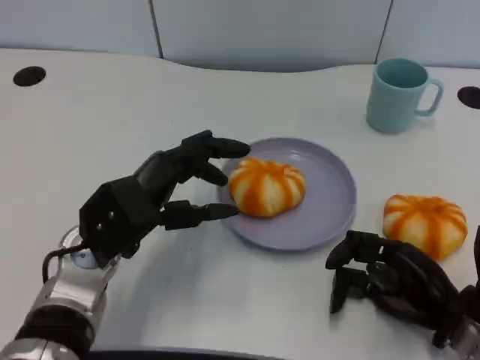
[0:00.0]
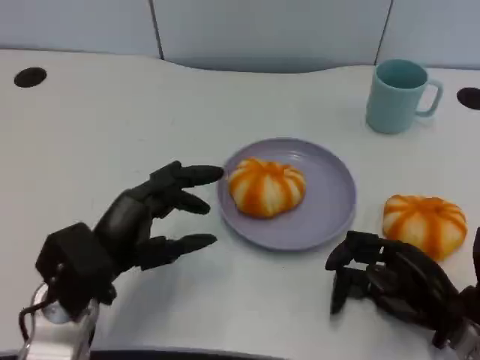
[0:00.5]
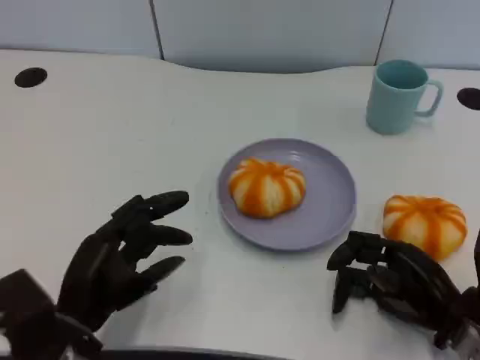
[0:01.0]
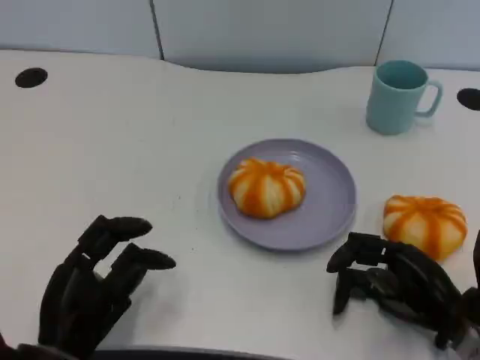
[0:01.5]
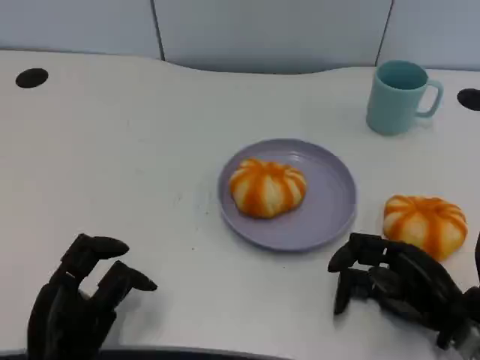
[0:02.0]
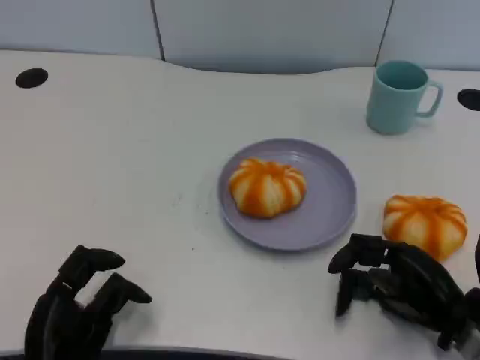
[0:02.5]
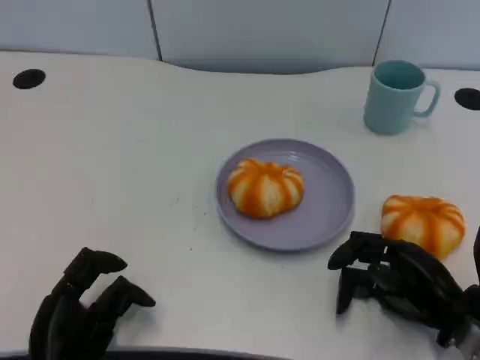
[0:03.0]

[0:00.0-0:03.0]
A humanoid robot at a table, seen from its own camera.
Task of the whole recording: Grasp the bread from the table and place it into the plate.
0.0 to 1.5 s: The left hand heads backward, downward and to the left, covering about 15 cm.
1.5 to 3.0 s: The hands move only a little.

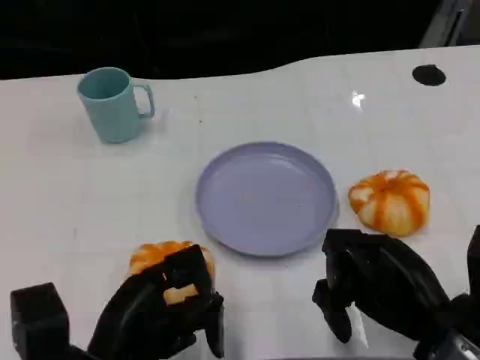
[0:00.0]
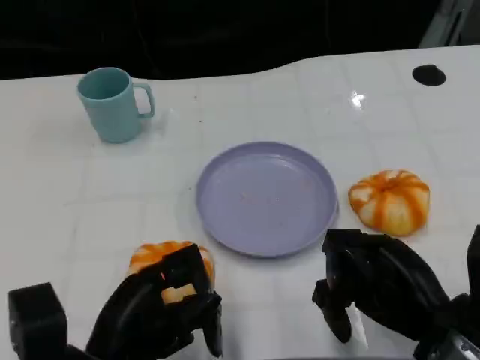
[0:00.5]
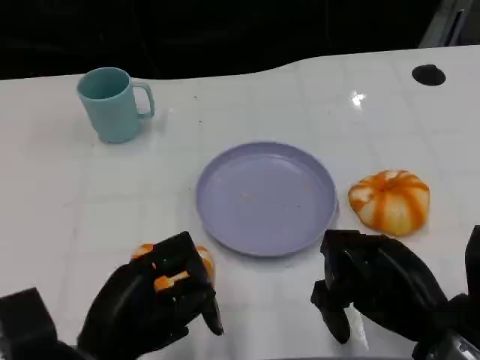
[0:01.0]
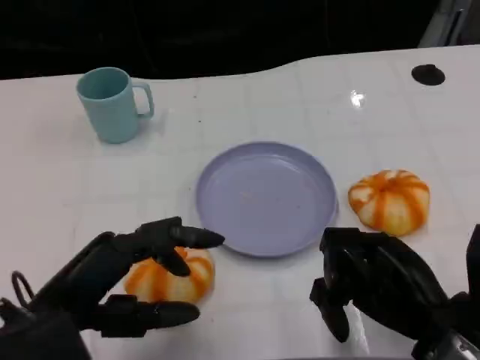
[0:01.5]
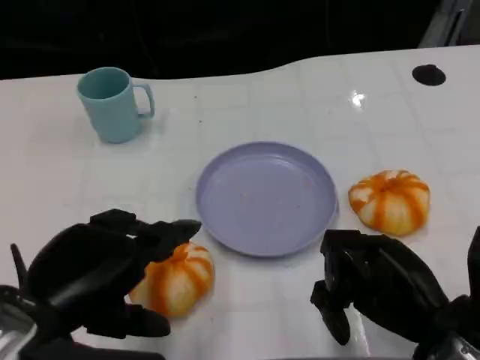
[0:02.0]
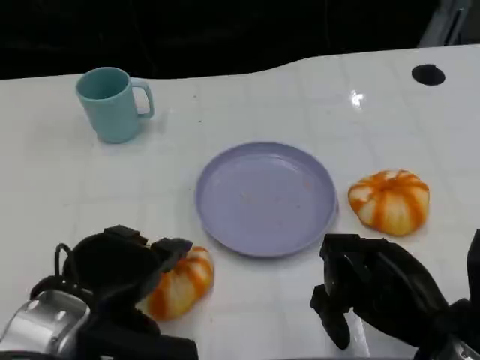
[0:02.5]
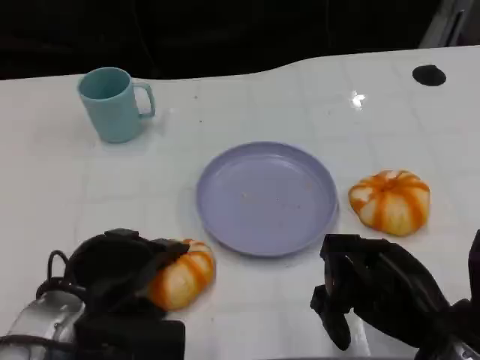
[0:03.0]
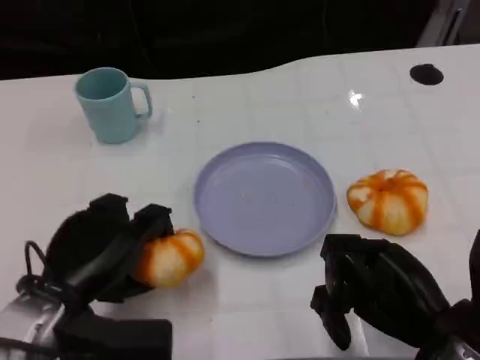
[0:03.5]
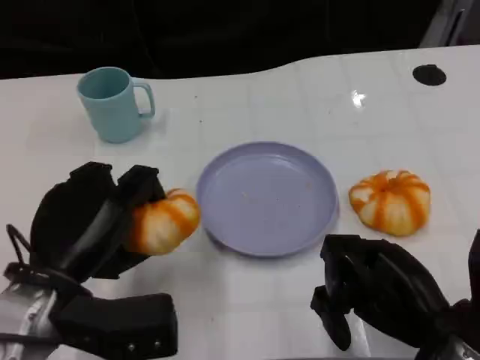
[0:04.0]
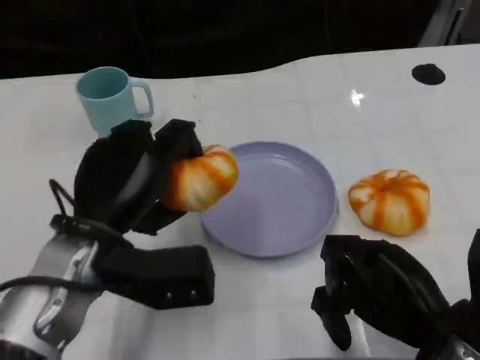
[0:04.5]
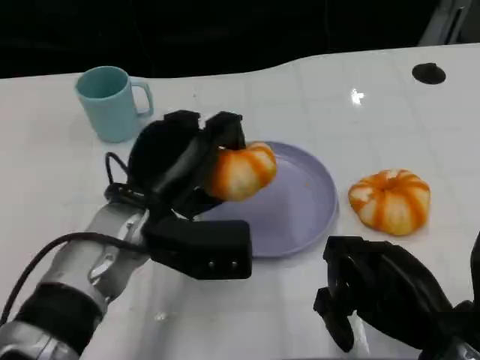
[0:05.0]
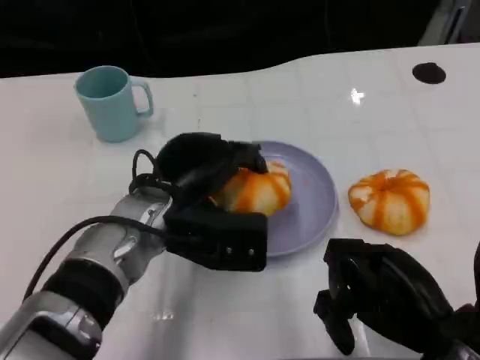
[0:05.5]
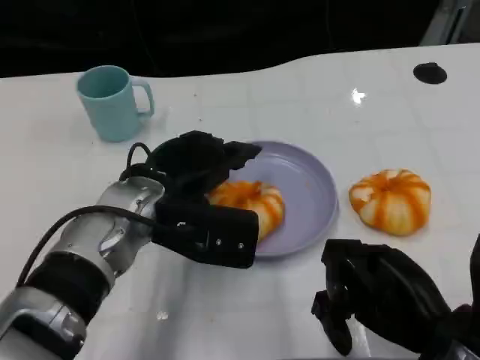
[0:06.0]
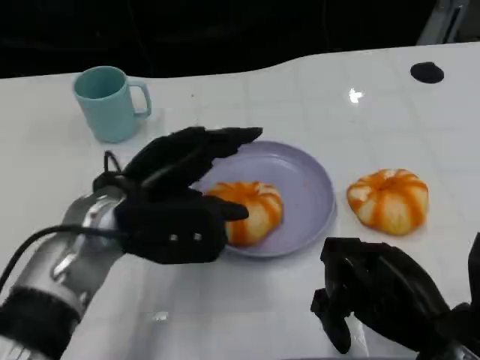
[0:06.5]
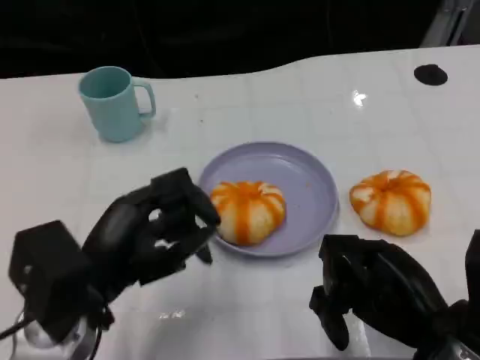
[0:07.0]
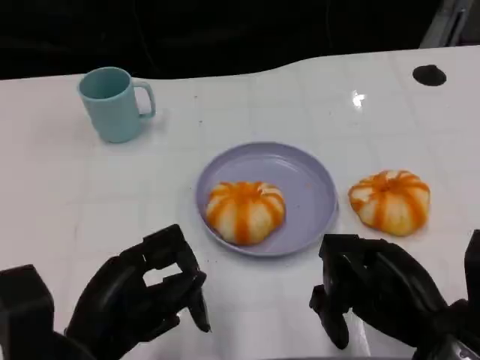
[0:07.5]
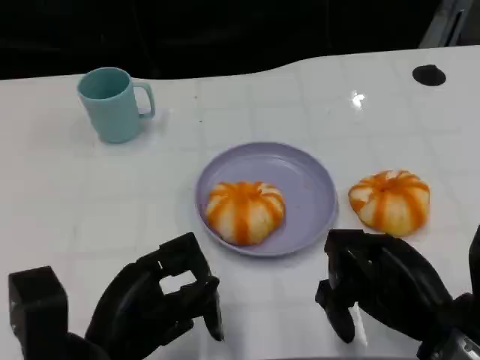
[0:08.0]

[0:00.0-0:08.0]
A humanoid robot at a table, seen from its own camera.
Task of the whole recording: Grasp the bread from the table and place it into the plate.
0.0 to 2.0 s: The left hand shifts some 10 cm upward.
4.0 to 6.0 s: The left hand is displaced forward and to the right by some 10 cm.
6.0 to 8.0 s: The left hand is displaced backward and to the left by some 15 cm.

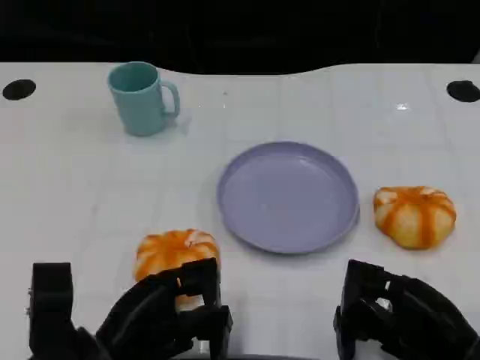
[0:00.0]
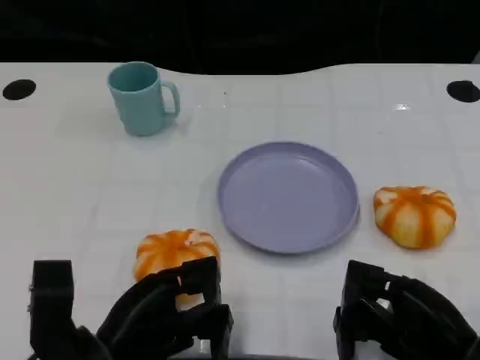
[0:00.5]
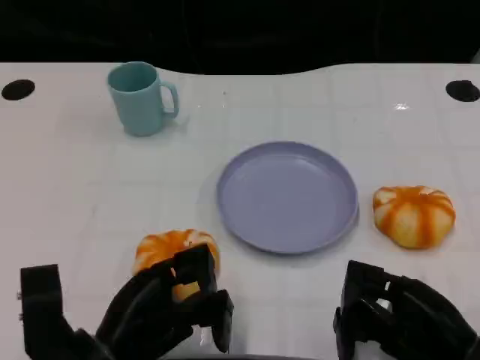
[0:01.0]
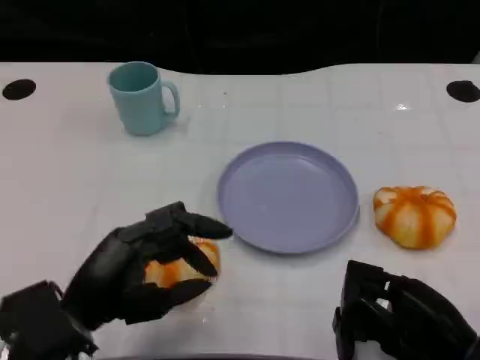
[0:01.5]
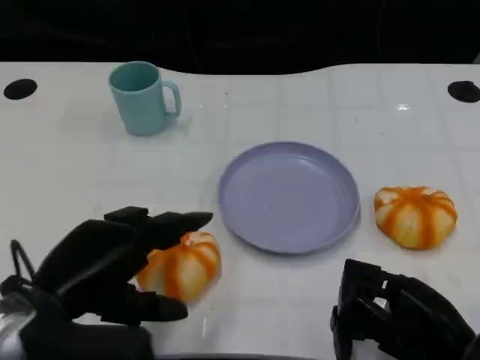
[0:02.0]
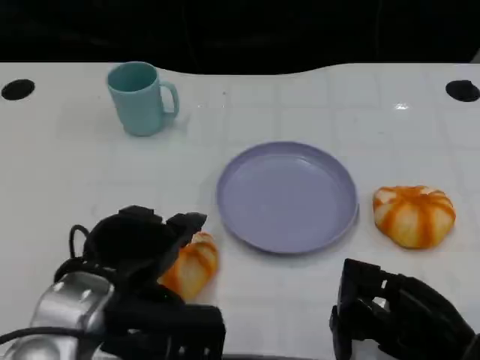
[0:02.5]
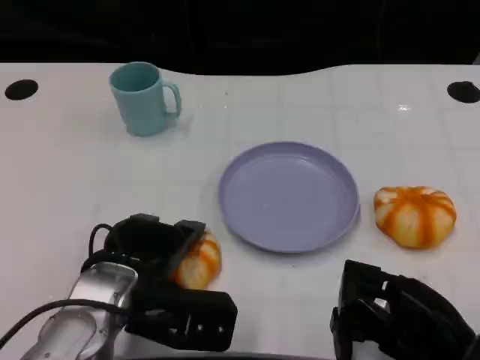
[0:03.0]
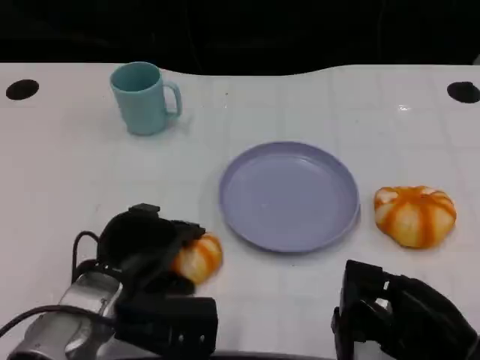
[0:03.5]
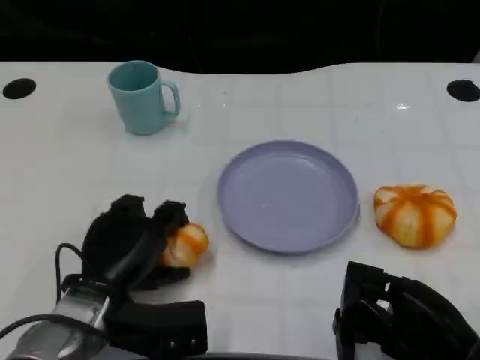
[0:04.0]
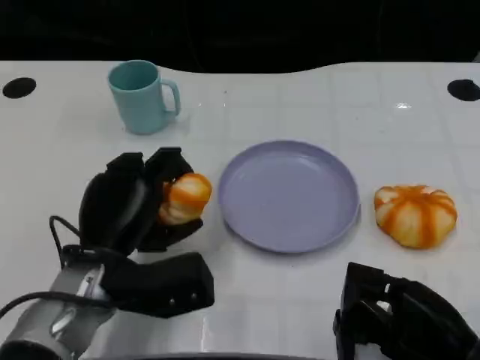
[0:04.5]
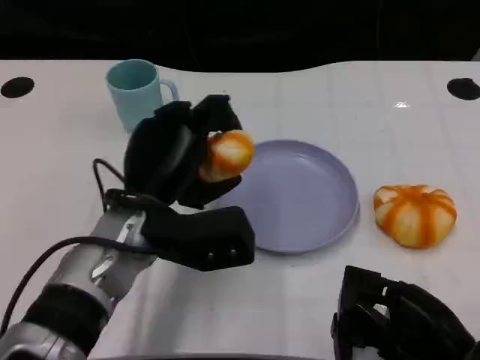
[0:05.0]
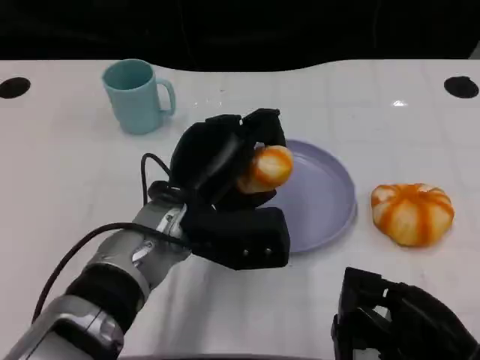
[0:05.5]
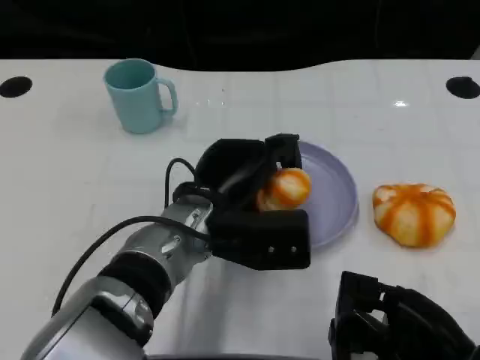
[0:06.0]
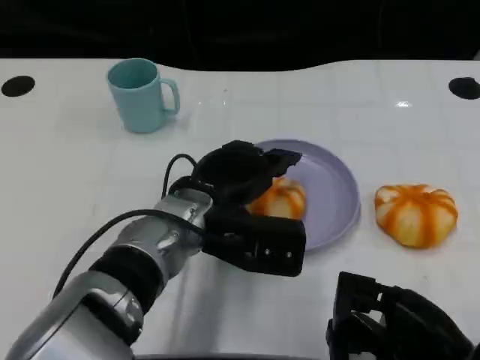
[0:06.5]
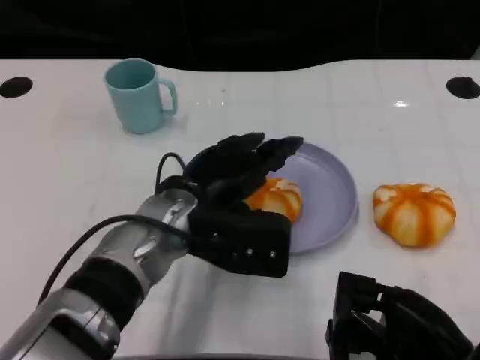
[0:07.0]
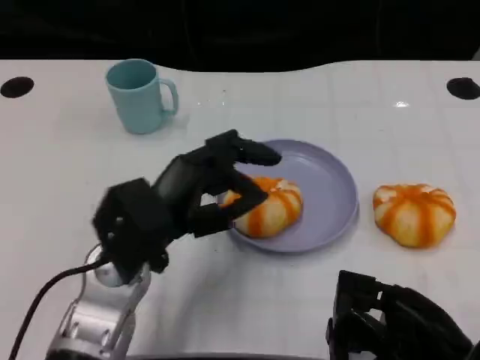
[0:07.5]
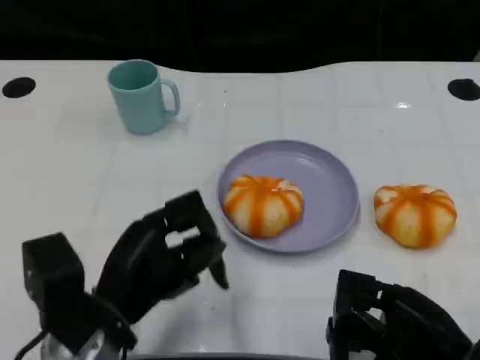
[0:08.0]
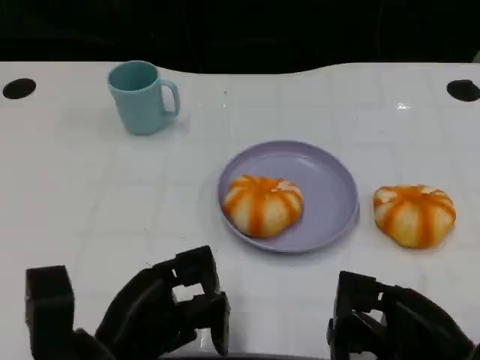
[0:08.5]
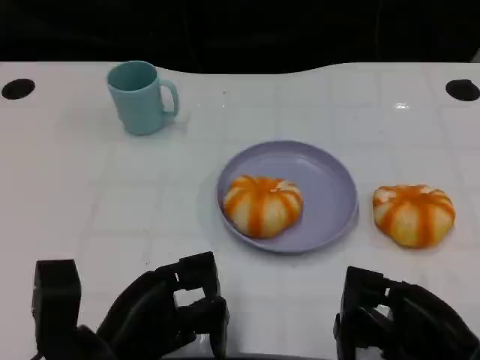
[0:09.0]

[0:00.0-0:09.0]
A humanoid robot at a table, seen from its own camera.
Task of the whole recording: Grasp the bread from the table and place it into the plate.
0.0 to 2.0 s: The left hand travels upward by roughly 10 cm.
2.0 to 4.5 s: The left hand travels forward and downward by roughly 10 cm.
4.5 to 7.0 s: The left hand travels to the right by approximately 5 cm.
7.0 to 9.0 s: The left hand travels backward, to the left and downward by some 15 cm.

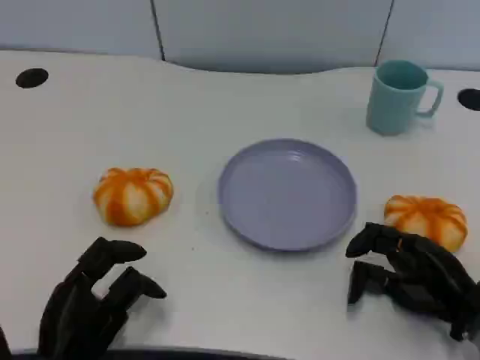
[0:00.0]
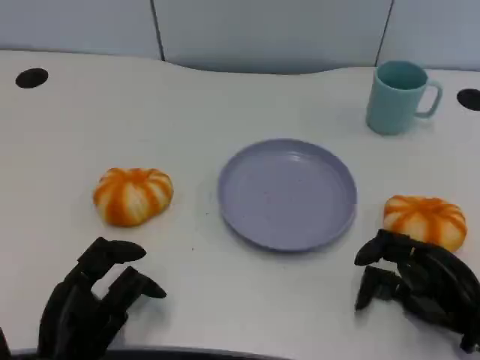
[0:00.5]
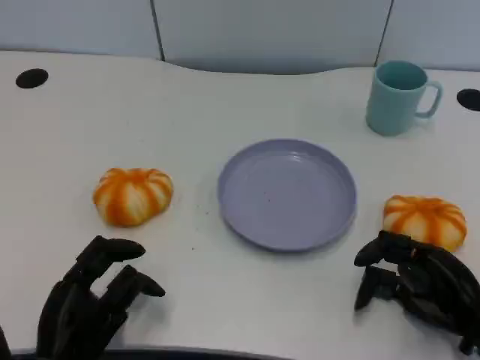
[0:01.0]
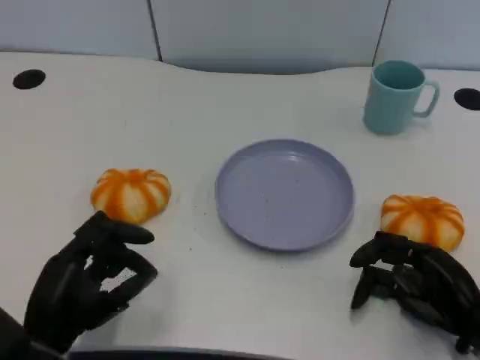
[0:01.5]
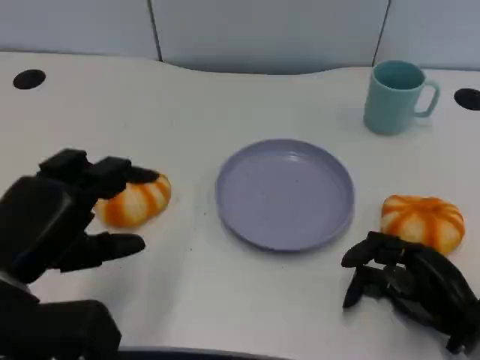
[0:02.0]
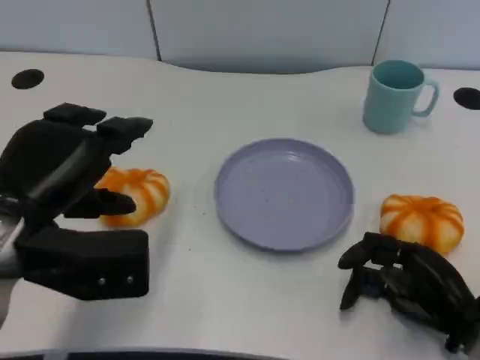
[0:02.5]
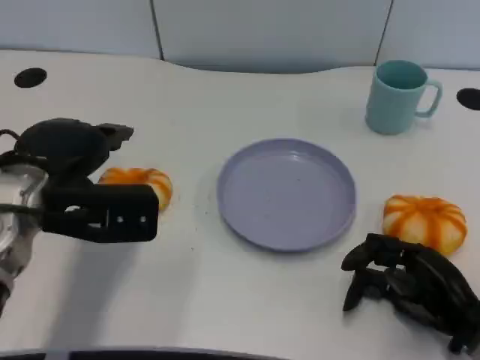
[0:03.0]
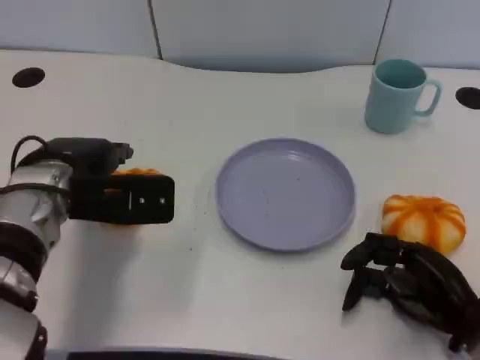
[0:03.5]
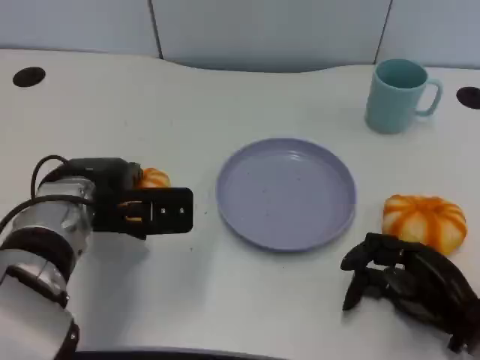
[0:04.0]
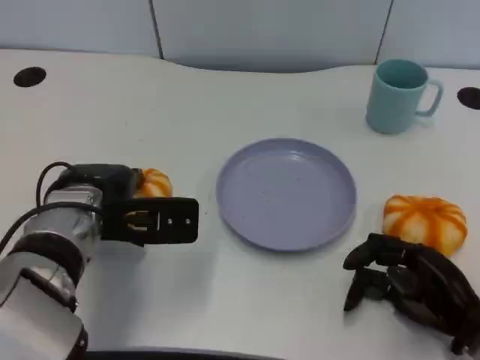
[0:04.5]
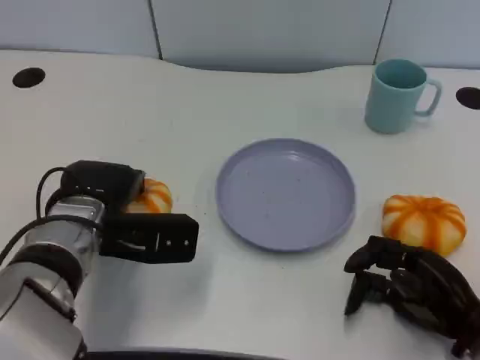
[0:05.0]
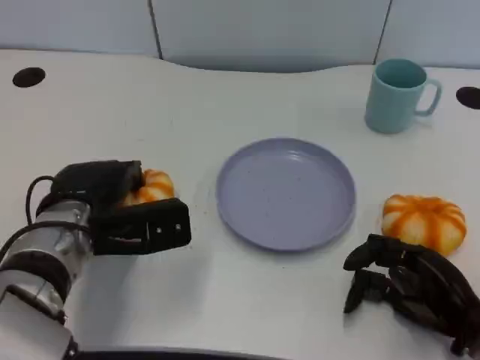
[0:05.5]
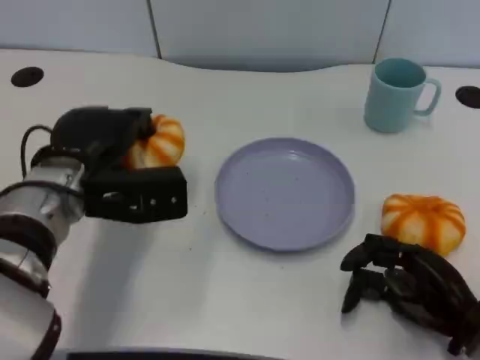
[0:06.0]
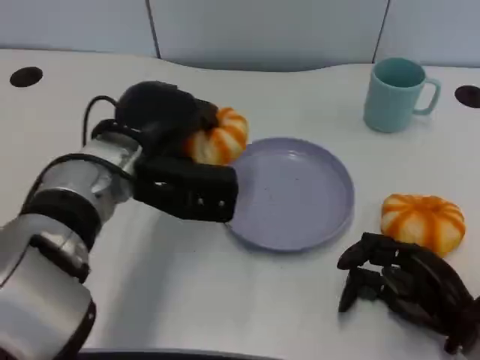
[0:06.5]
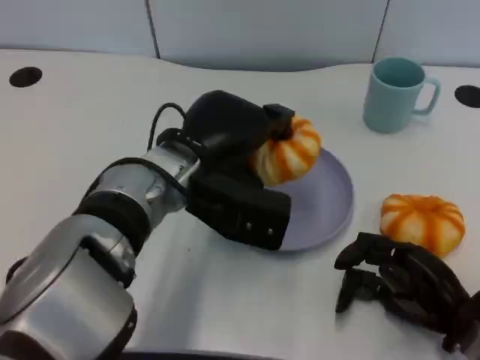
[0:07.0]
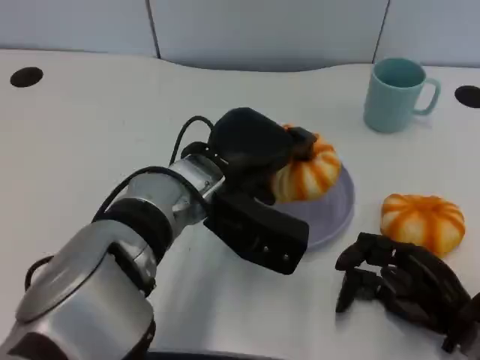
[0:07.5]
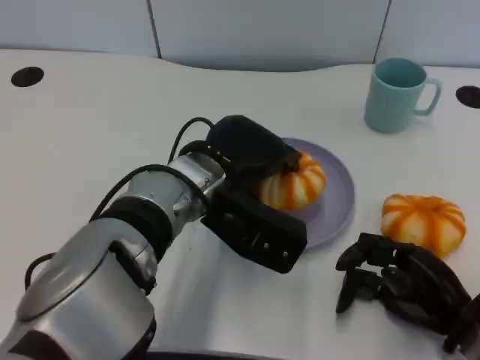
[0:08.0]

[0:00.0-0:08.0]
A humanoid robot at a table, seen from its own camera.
Task of the whole recording: Grasp the bread from the table and place it into the plate.
0.0 to 2.0 s: The left hand shifts some 15 cm upward.
2.0 to 4.0 s: The left hand is displaced forward and to the right by roughly 15 cm.
6.0 to 8.0 s: The left hand travels to the right by approximately 10 cm.
